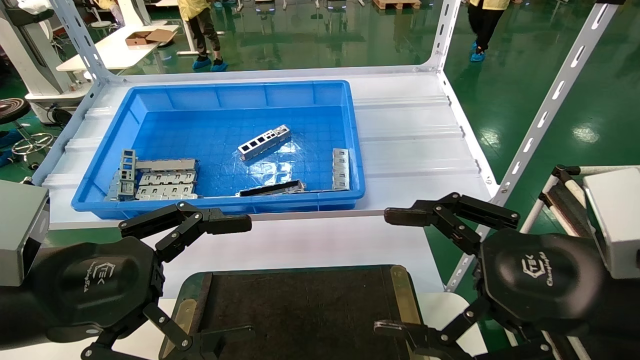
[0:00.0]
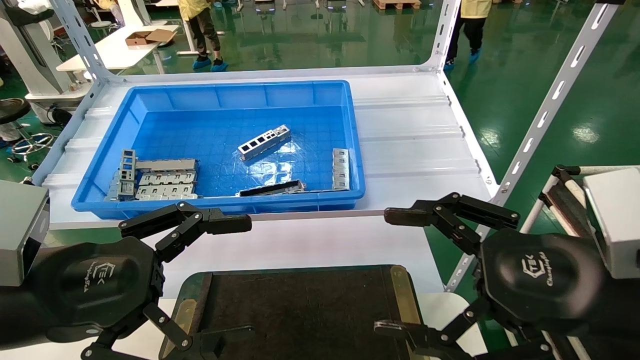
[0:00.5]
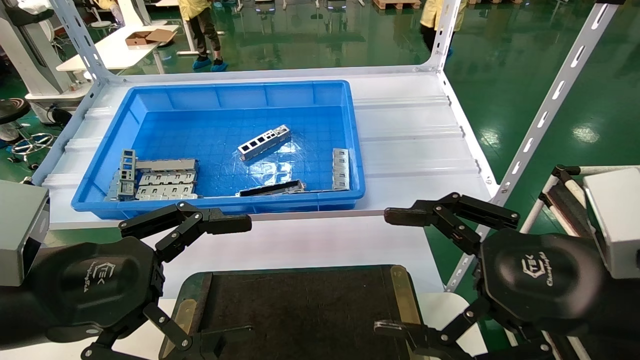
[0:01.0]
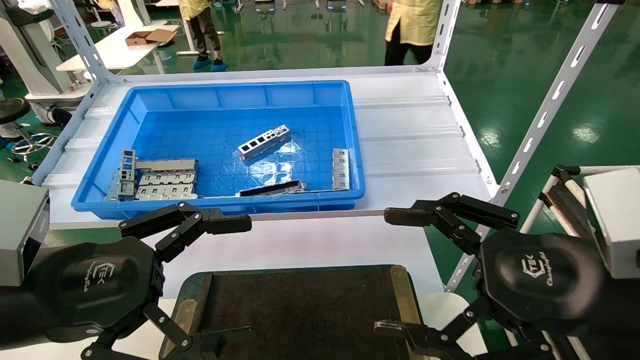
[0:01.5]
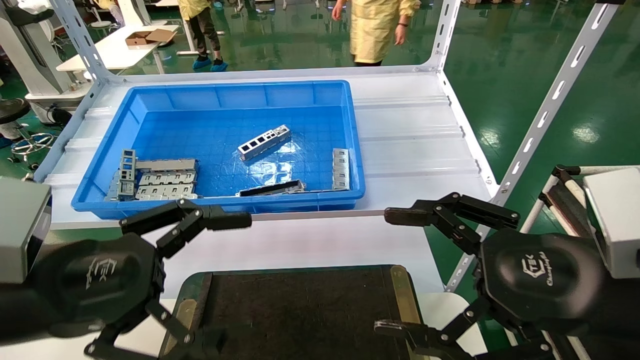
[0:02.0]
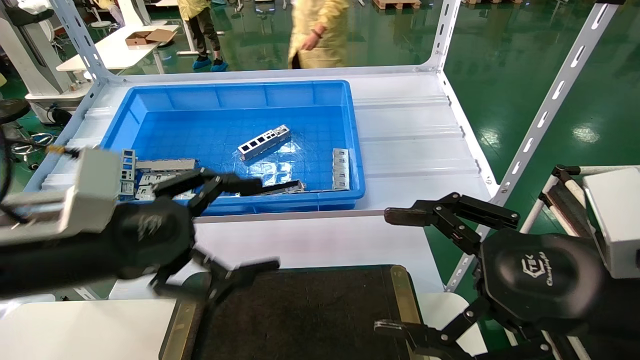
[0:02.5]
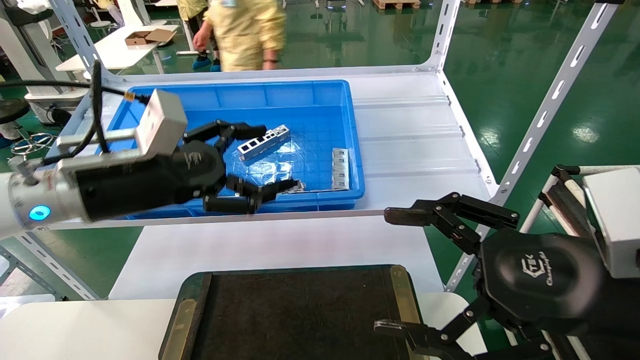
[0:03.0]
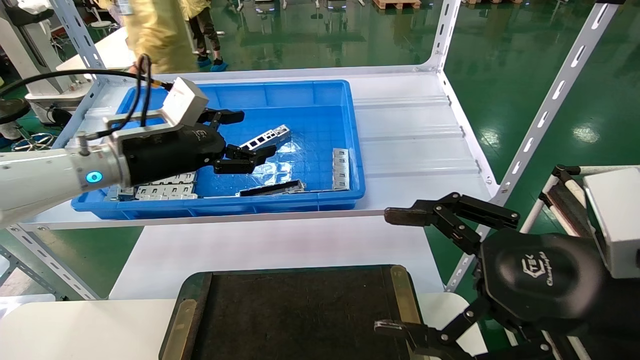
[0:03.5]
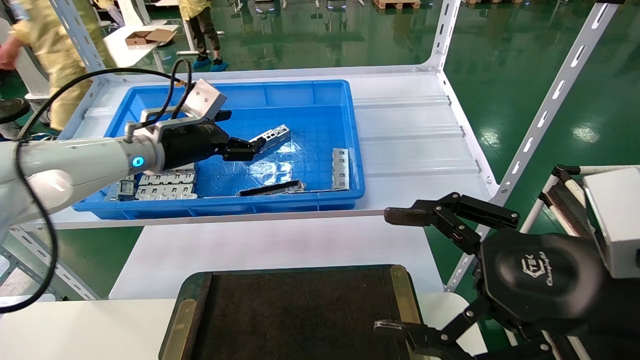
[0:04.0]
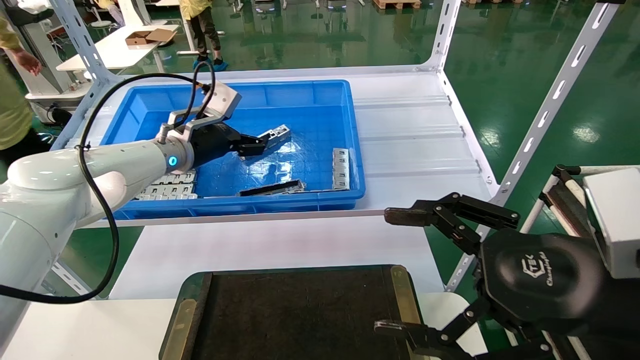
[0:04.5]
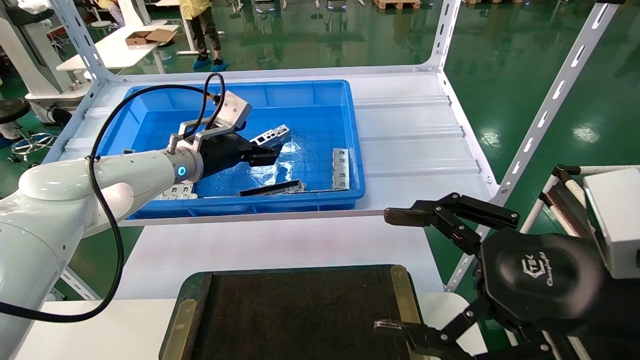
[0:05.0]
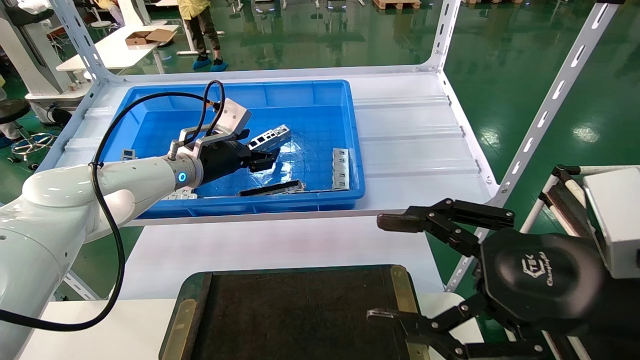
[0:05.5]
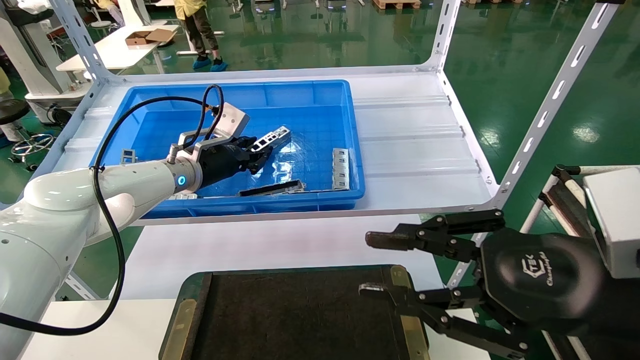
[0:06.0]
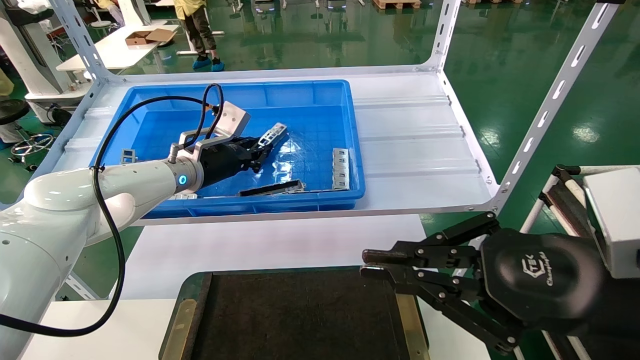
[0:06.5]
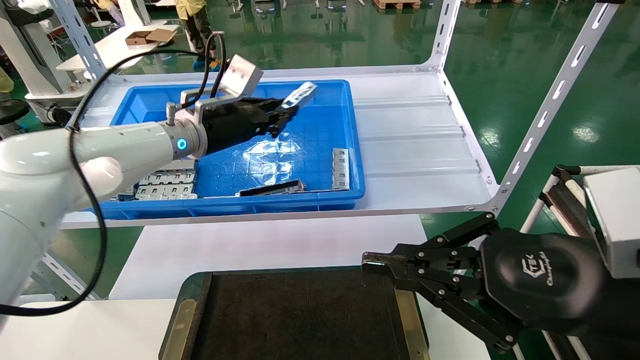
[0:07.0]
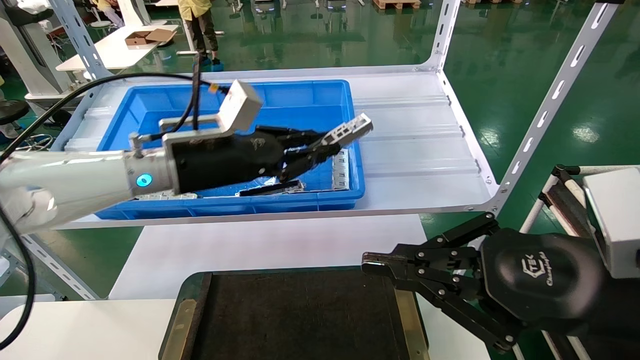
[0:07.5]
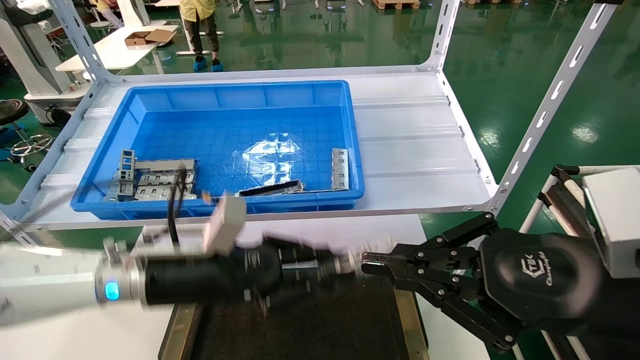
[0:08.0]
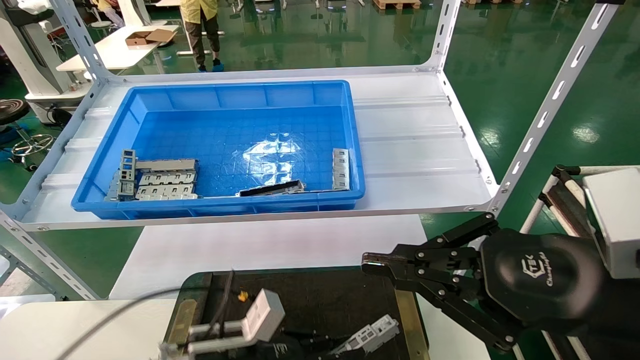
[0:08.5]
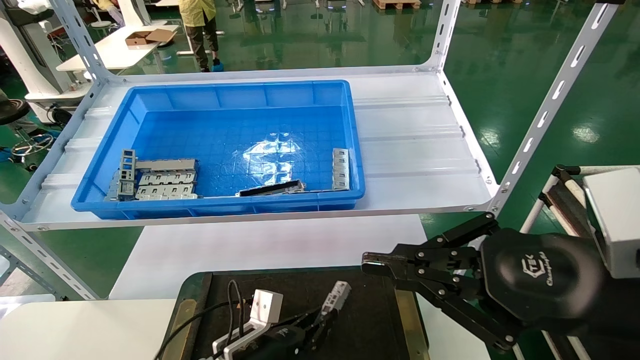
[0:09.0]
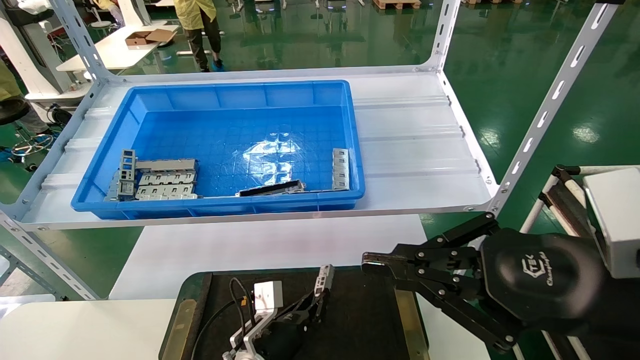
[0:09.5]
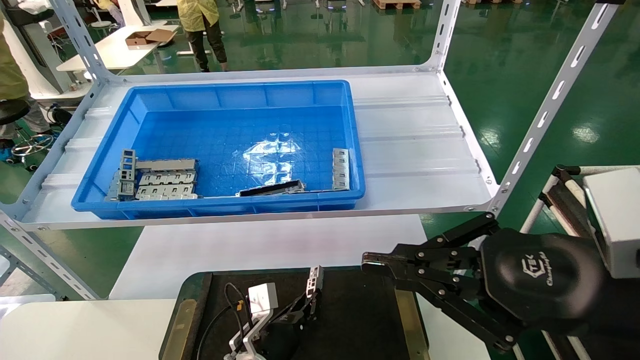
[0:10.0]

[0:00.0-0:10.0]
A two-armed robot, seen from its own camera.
Task of the whole recording: Grasp the part with one hand and place it on the black container.
Step, 0:02.5 to 0:06.5: Pick up the front USB bracket from the feeding area.
0:00.0 to 0:02.0: Both grippers stay about where they are.
0:02.0 to 0:04.0: The left gripper heads forward, covering about 30 cm.
0:04.0 to 0:06.0: The left gripper shifts by some 5 cm, and closes, while the right gripper closes its fingers.
0:06.0 to 0:08.0: The left gripper goes about 20 cm backward and downward, and closes. The right gripper closes.
0:08.0 to 0:10.0: The left gripper moves downward, approximately 25 cm.

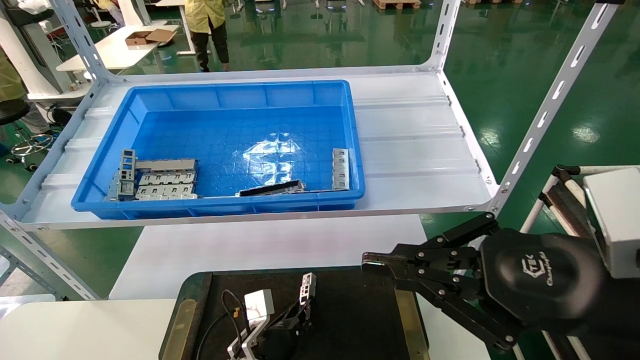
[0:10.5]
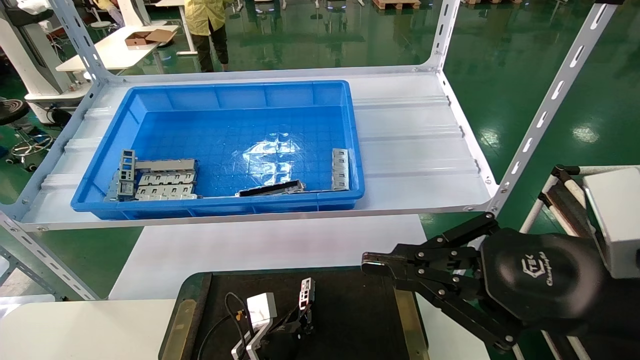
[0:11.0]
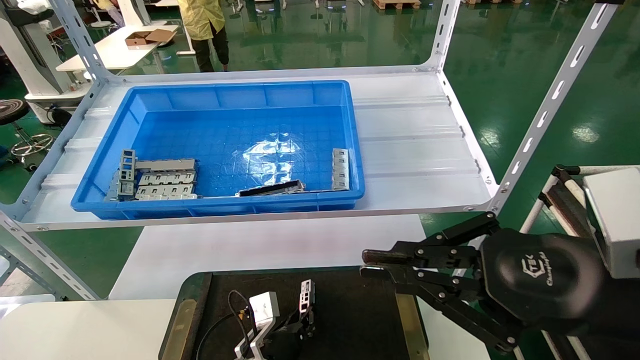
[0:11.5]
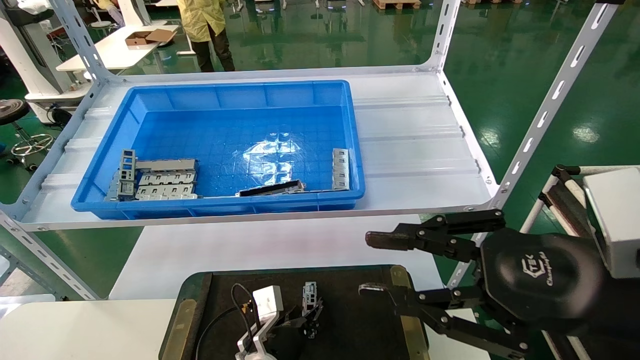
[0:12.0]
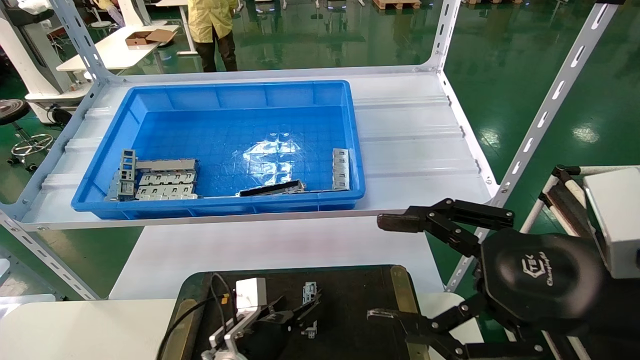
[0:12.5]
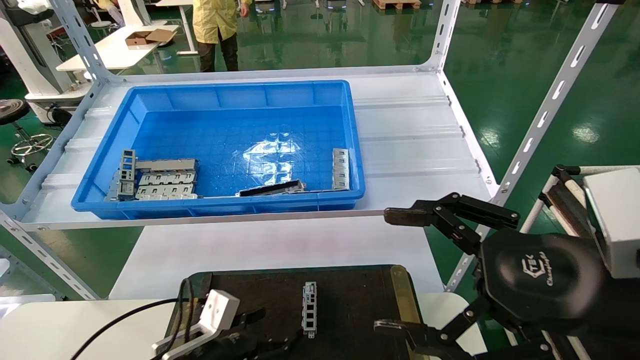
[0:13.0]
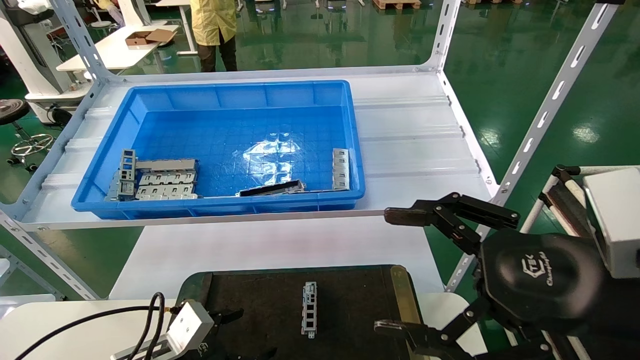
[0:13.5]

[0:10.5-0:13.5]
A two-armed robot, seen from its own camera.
Task of the whole recording: Grasp the part with one hand and place it on the black container.
0:10.5 to 0:12.0: The grippers move only a little.
0:12.0 to 0:13.5: The left gripper is displaced to the left and backward by approximately 20 cm, and opens its fingers. Meanwhile the right gripper opens up.

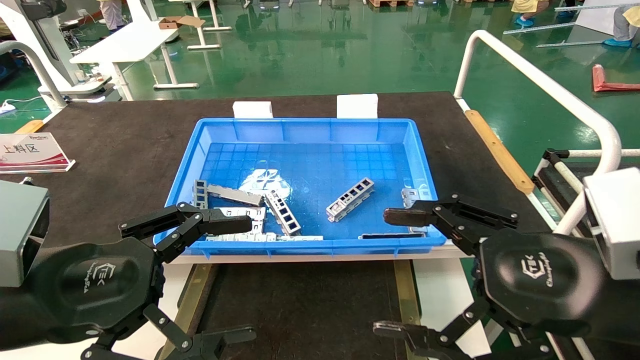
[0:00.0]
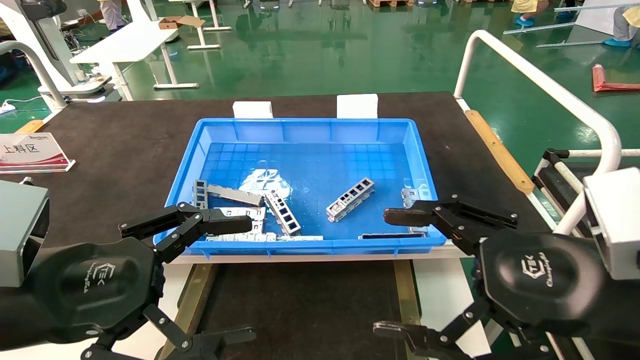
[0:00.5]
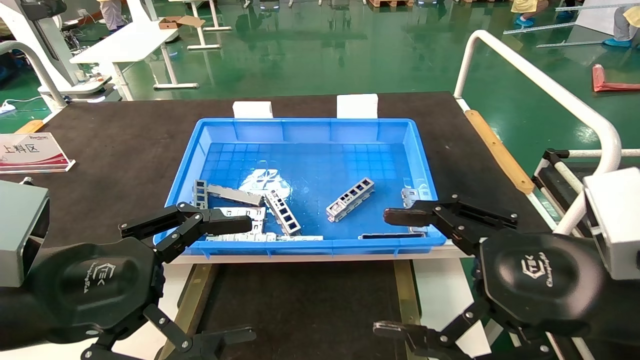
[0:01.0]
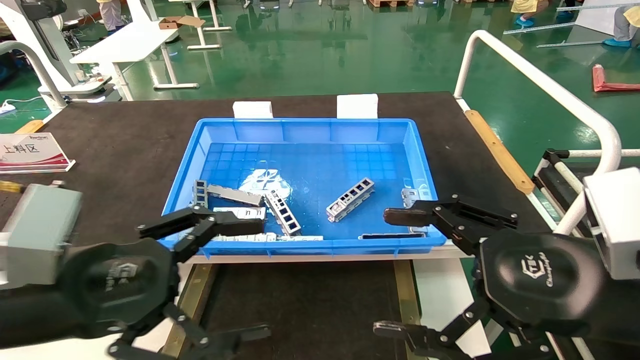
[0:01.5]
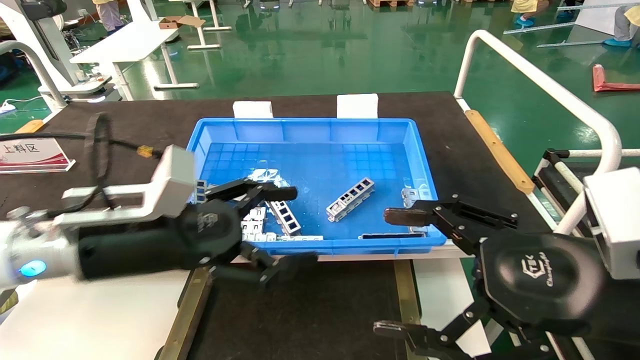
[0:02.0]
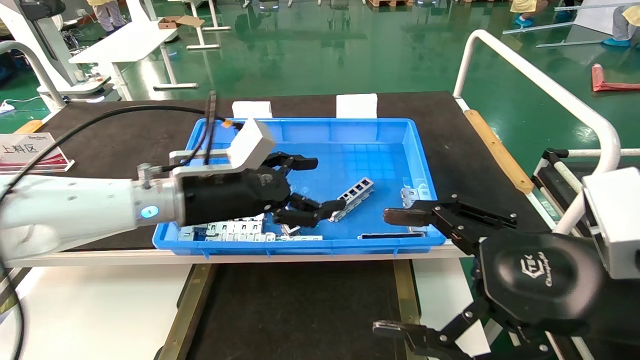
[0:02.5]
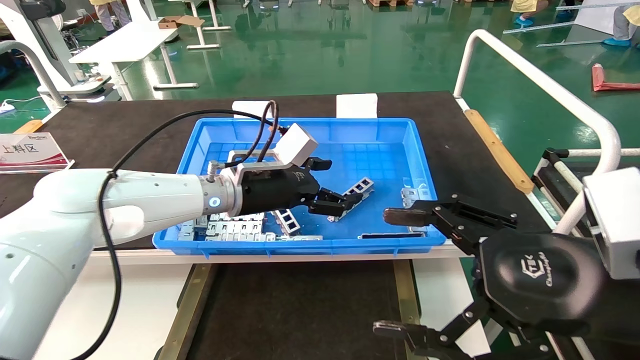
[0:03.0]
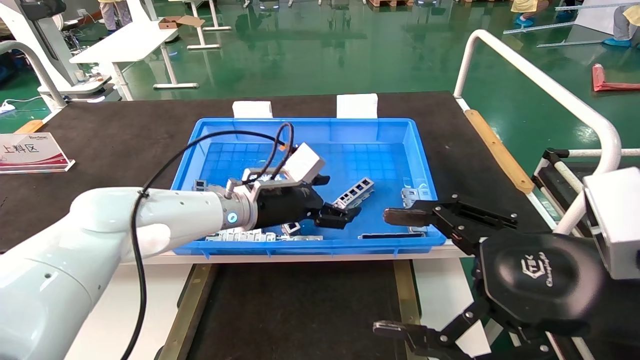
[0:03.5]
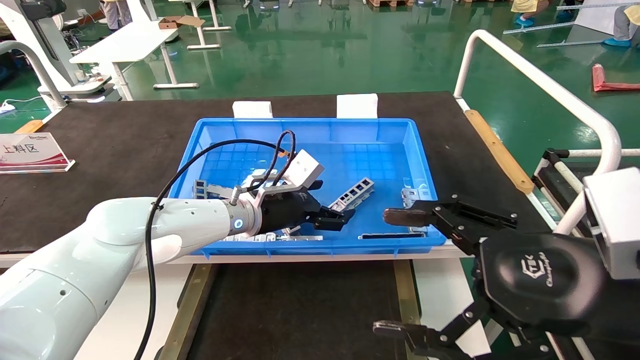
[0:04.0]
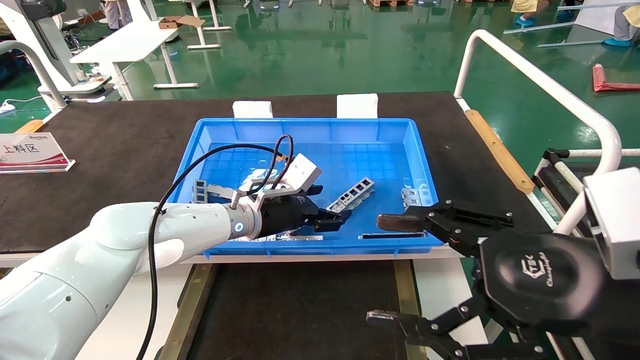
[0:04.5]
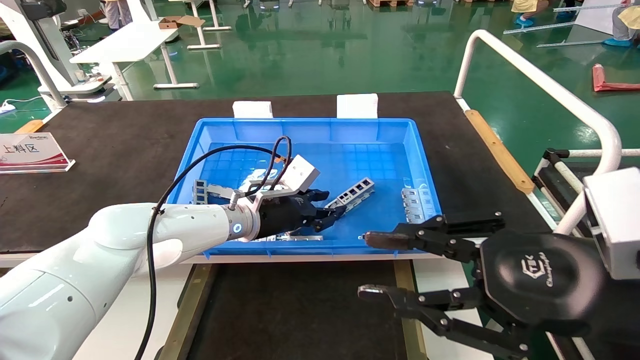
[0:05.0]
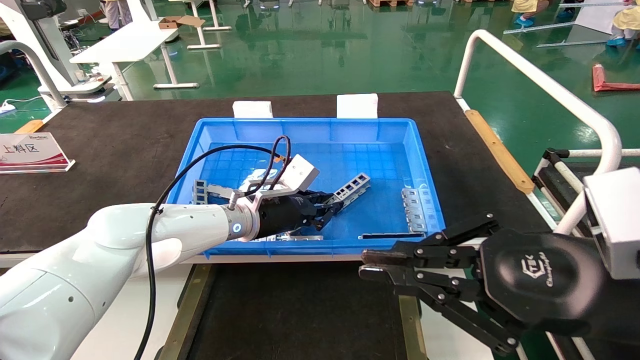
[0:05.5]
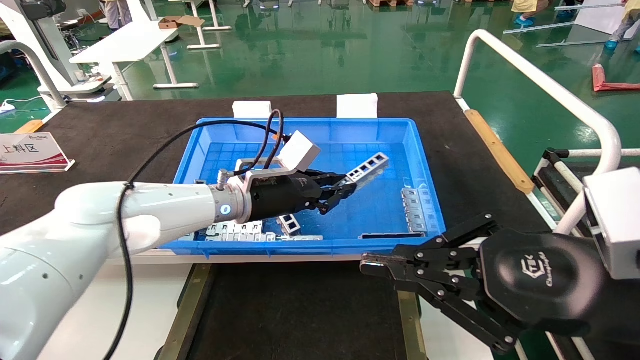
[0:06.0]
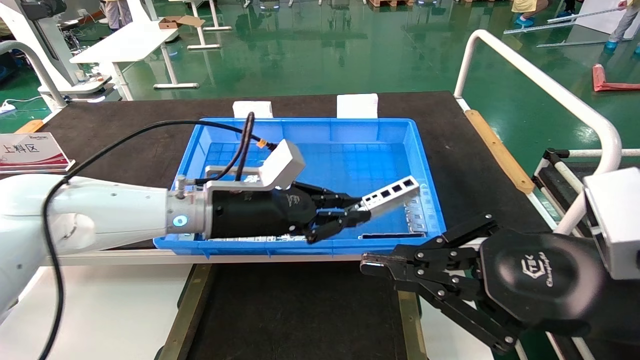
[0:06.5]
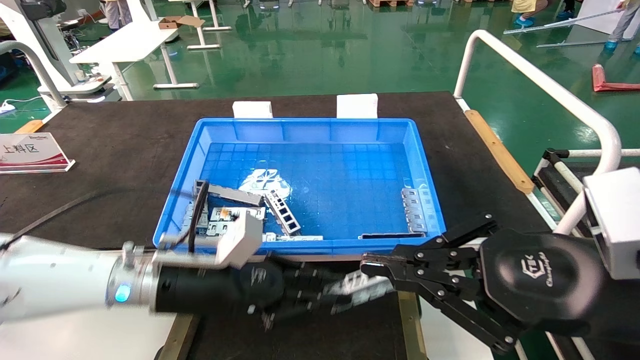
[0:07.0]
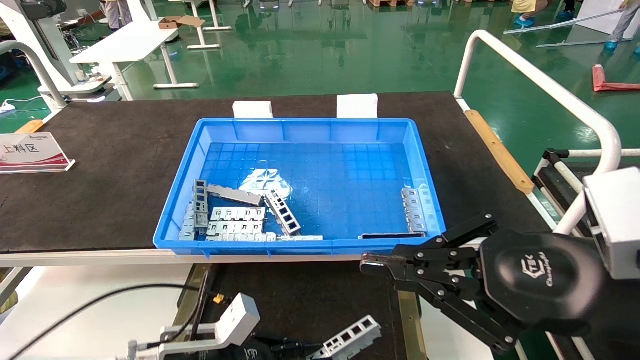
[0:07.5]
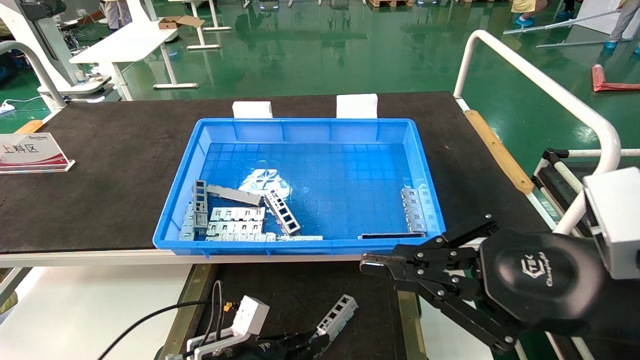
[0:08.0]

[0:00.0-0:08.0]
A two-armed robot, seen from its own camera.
Task of the whole recording: Grasp the part with one hand and place it on the black container.
Step, 0:02.0 to 0:05.5: Pick up the front USB bracket from the feeding area.
0:00.0 to 0:02.0: The left gripper moves forward, about 10 cm.
0:02.0 to 0:04.0: The left gripper goes roughly 20 cm forward and to the right.
0:04.0 to 0:06.0: The left gripper closes up; the right gripper closes.
0:06.0 to 0:08.0: The left gripper shifts some 25 cm downward and backward.
